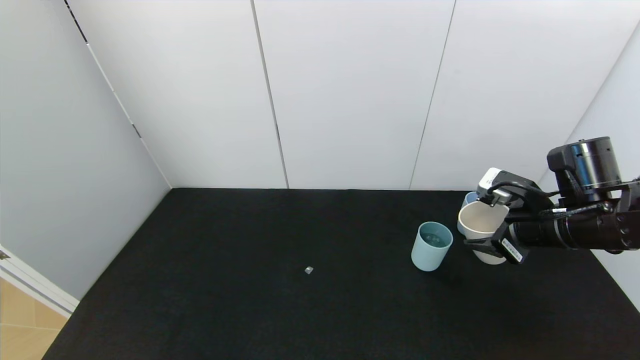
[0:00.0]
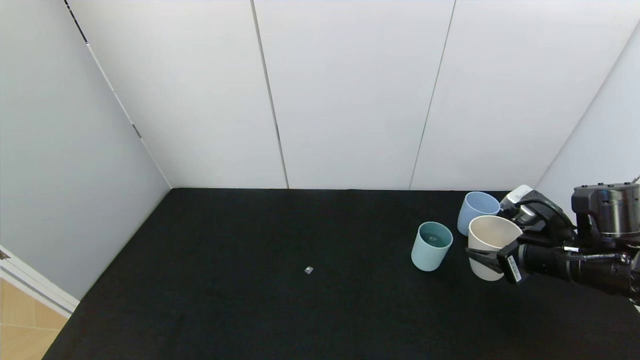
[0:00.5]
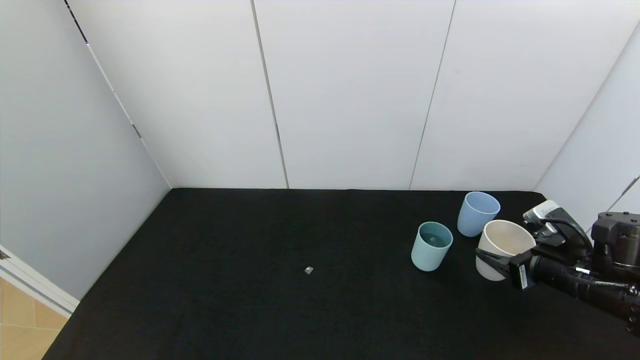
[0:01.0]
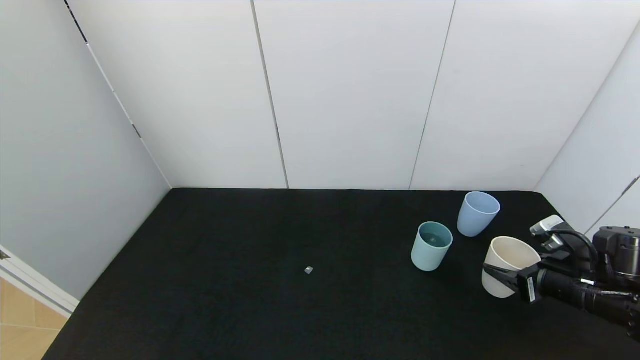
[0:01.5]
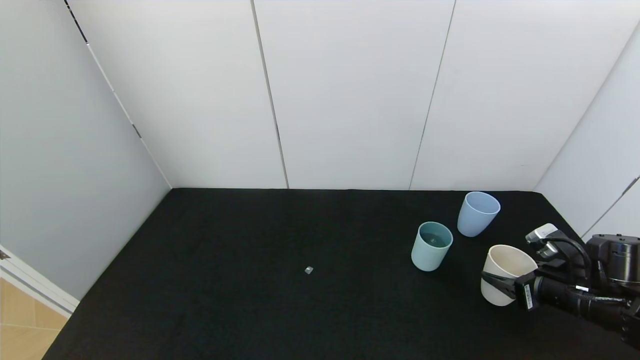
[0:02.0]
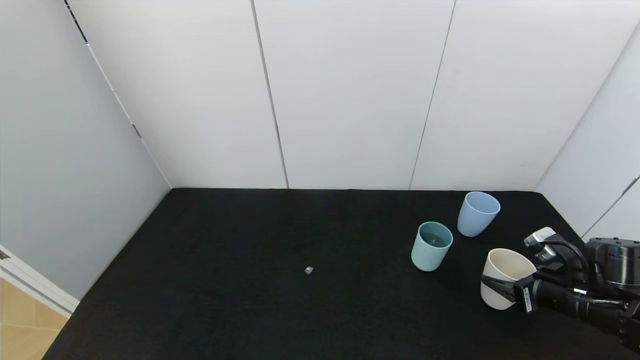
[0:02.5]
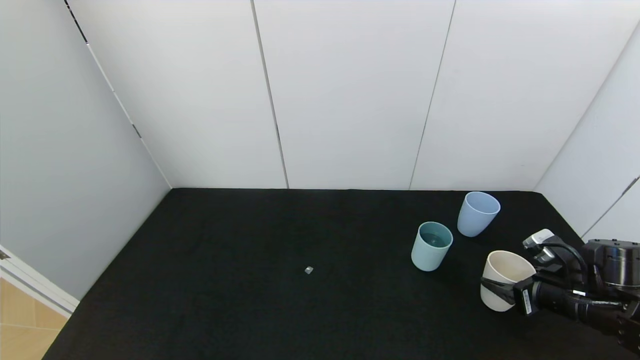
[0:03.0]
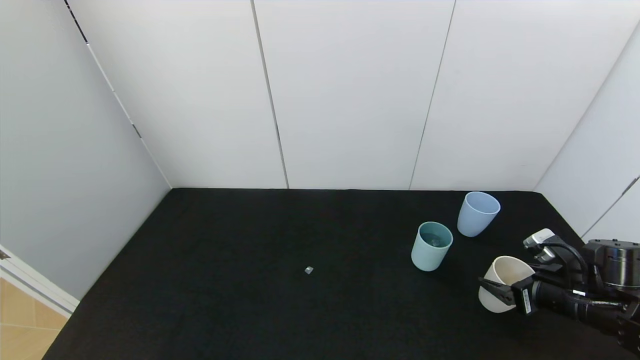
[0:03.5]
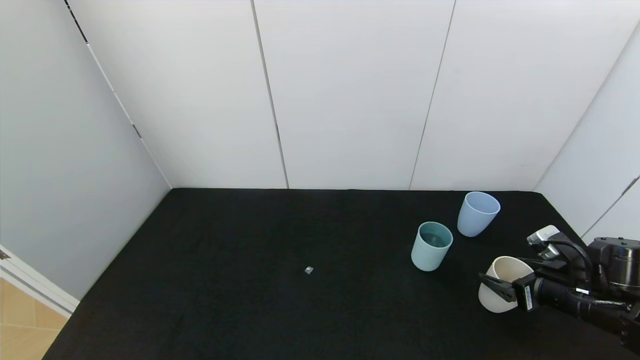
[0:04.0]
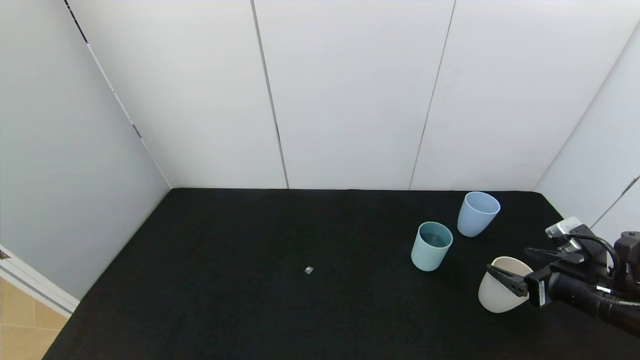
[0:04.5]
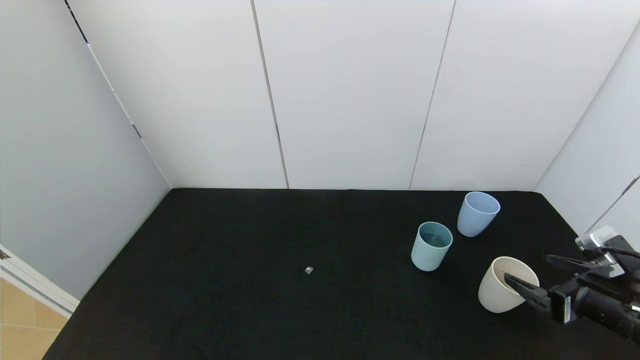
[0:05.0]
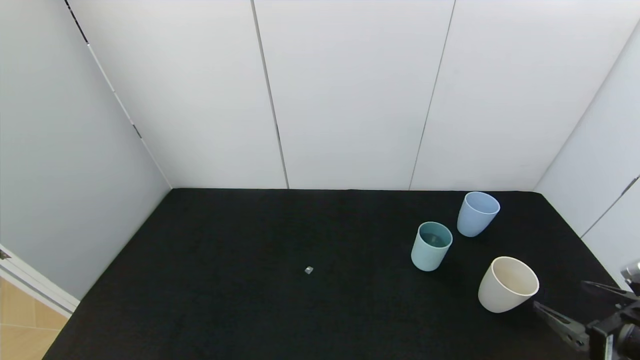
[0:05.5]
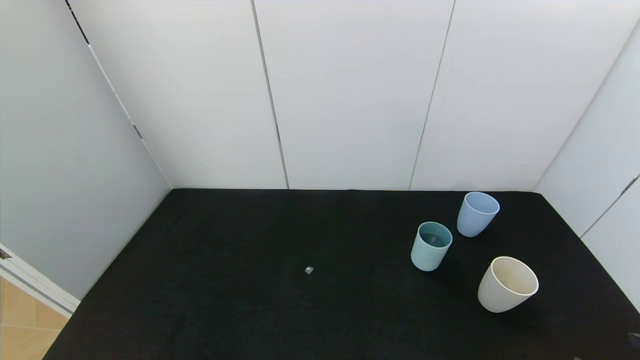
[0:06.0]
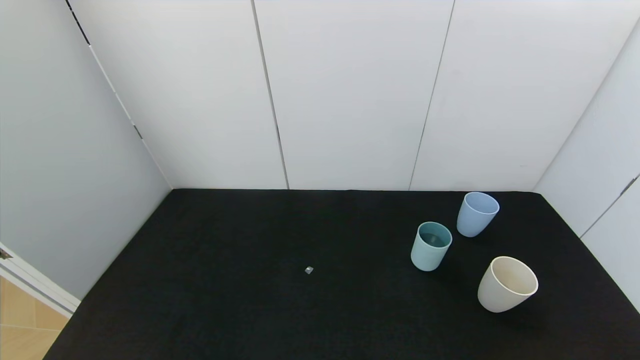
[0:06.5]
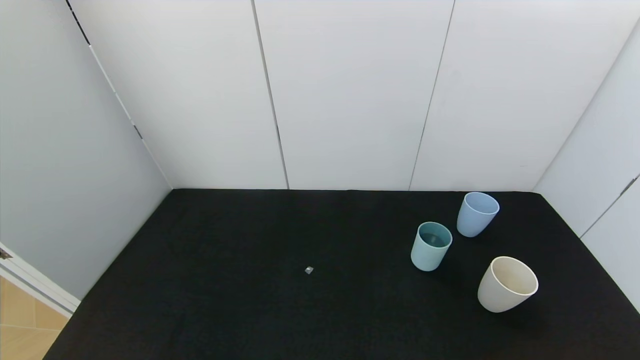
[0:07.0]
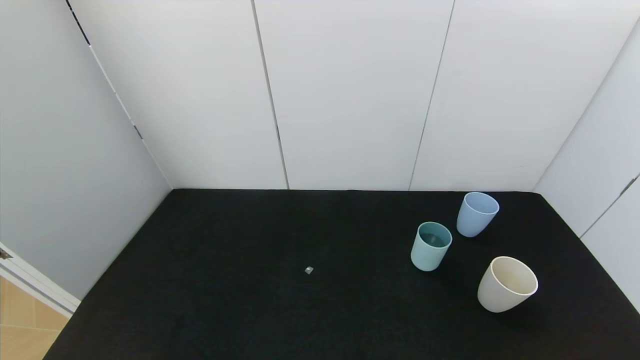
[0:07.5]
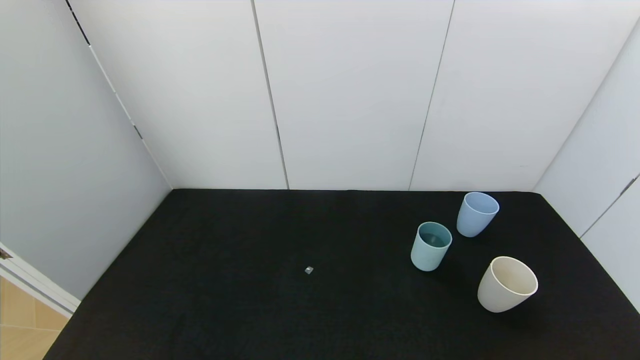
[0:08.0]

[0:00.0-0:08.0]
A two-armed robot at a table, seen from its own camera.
Task of the whole recording: use the gripper to pour the water into the other two cups on black table.
Step, 0:00.0 to 0:05.0: Place the white cup with the right gripper.
0:00.0 to 0:02.0: The right gripper shifts some 15 cm downward and to the right.
0:02.0 to 0:04.0: The right gripper opens its fingers.
0:04.0 to 0:06.0: The right gripper shifts about 20 cm backward.
